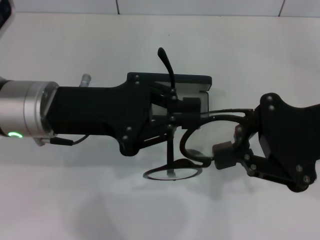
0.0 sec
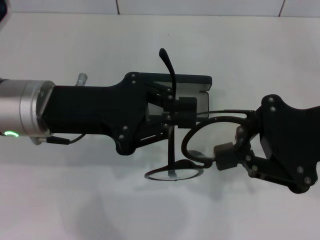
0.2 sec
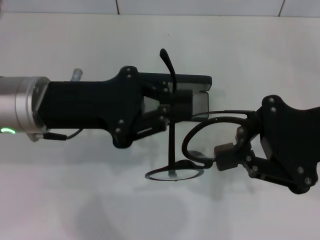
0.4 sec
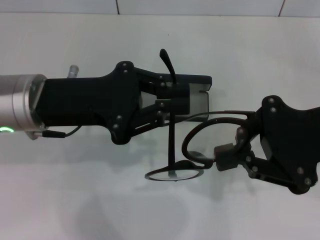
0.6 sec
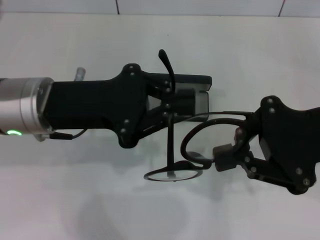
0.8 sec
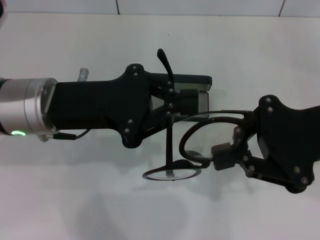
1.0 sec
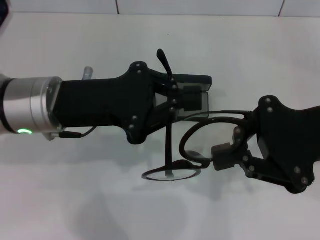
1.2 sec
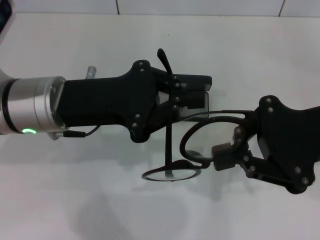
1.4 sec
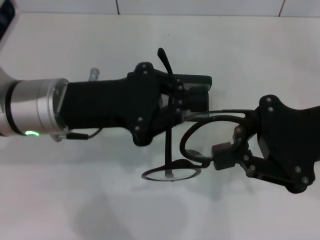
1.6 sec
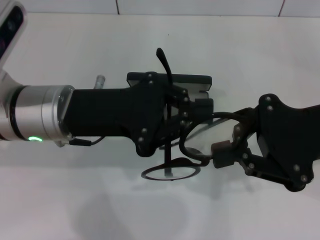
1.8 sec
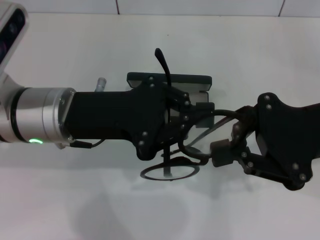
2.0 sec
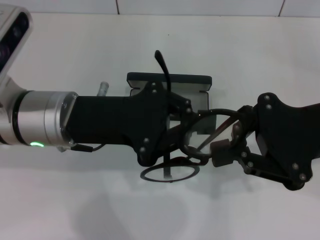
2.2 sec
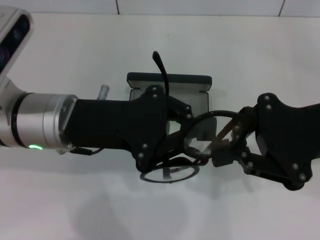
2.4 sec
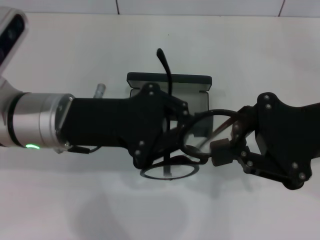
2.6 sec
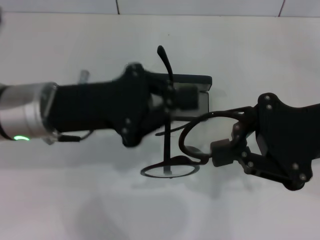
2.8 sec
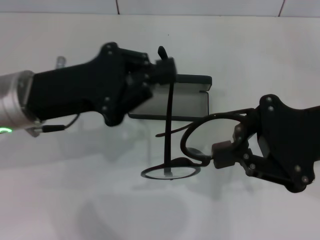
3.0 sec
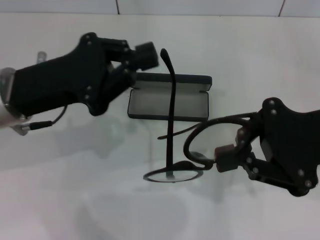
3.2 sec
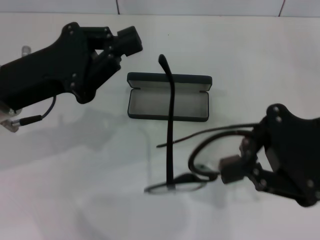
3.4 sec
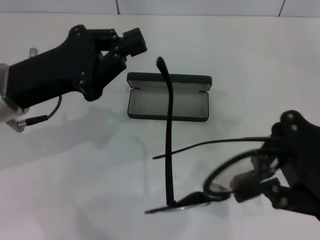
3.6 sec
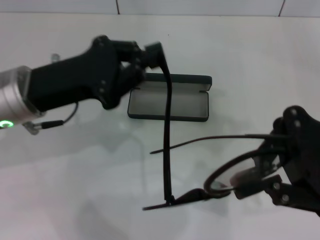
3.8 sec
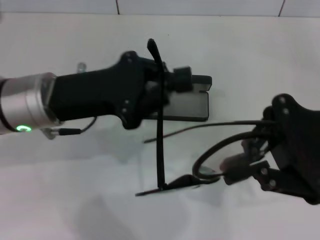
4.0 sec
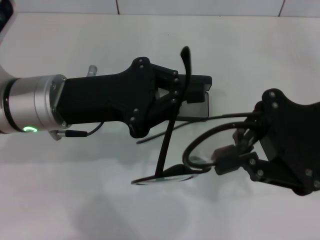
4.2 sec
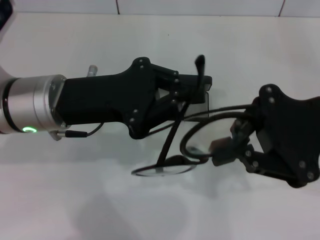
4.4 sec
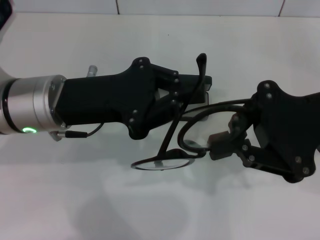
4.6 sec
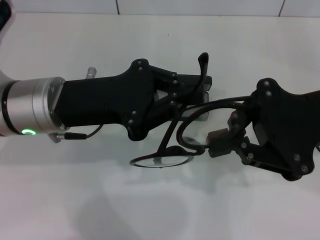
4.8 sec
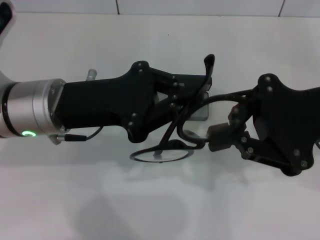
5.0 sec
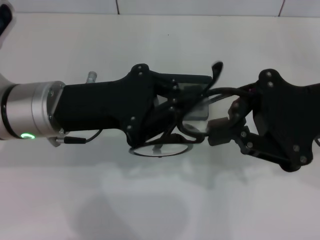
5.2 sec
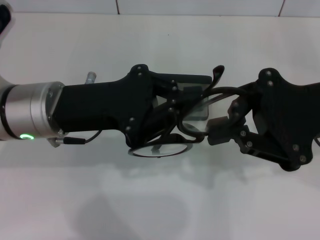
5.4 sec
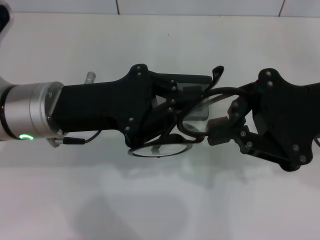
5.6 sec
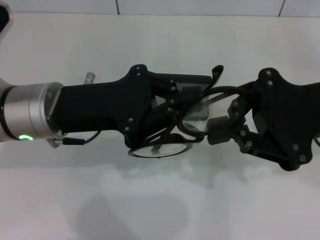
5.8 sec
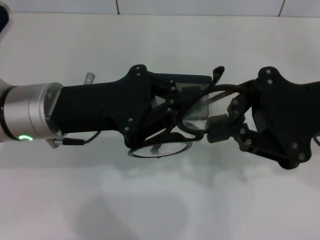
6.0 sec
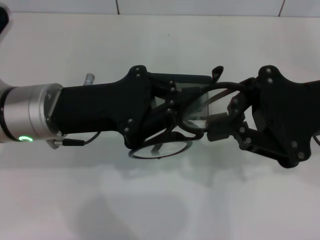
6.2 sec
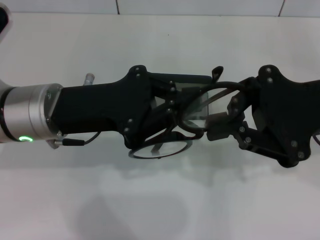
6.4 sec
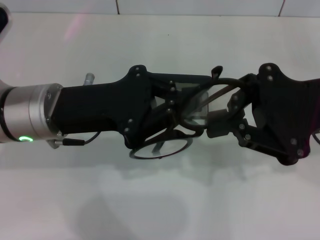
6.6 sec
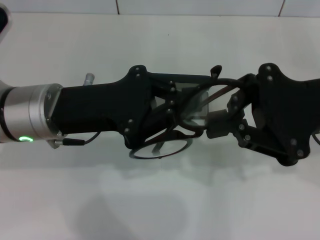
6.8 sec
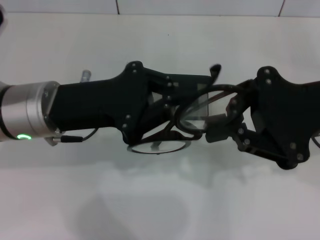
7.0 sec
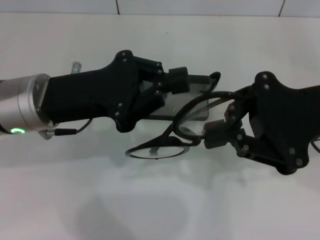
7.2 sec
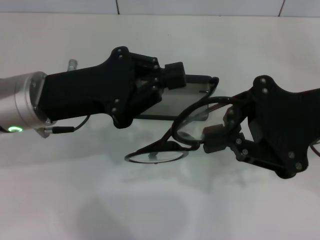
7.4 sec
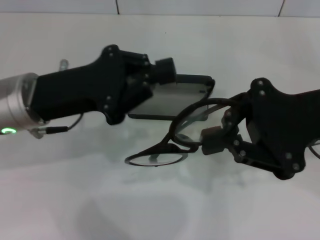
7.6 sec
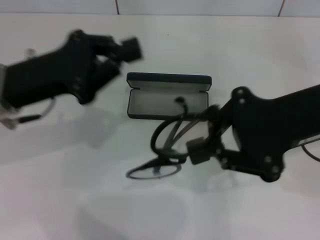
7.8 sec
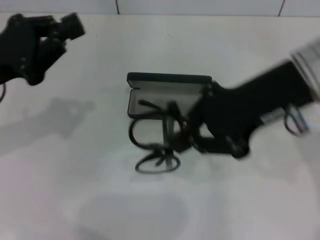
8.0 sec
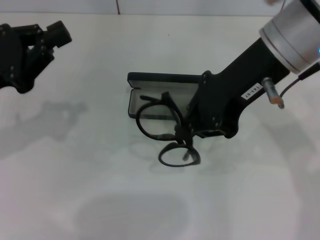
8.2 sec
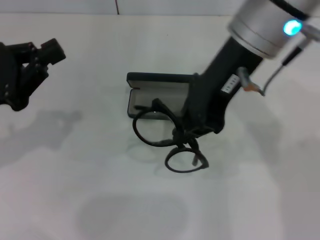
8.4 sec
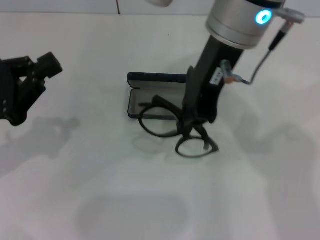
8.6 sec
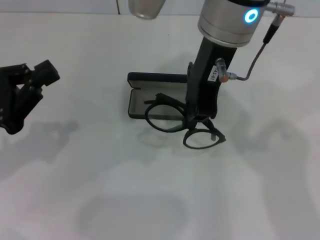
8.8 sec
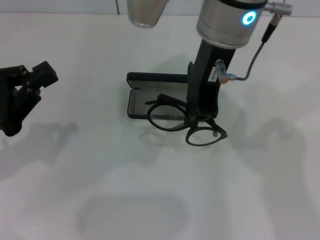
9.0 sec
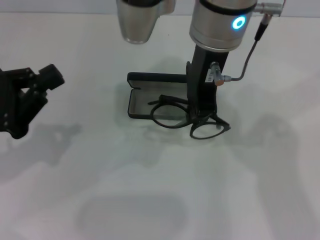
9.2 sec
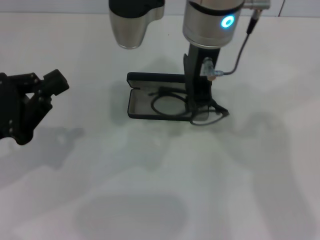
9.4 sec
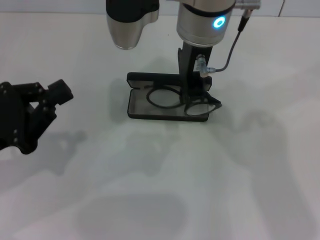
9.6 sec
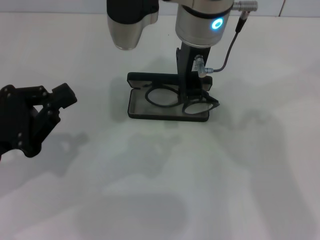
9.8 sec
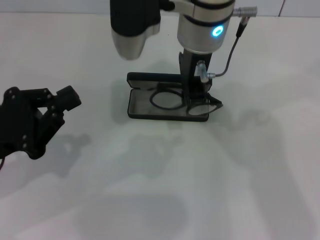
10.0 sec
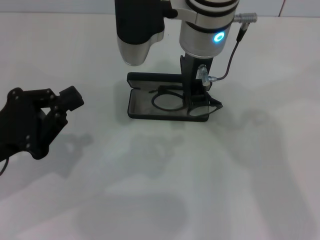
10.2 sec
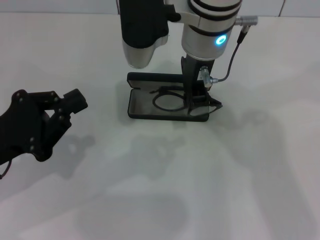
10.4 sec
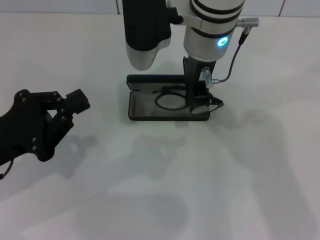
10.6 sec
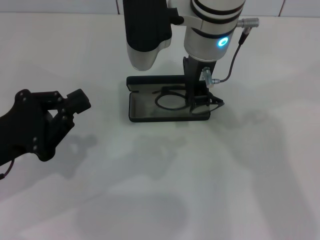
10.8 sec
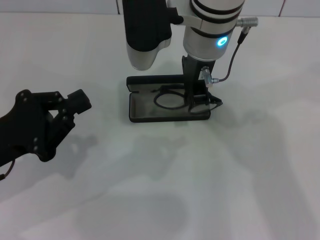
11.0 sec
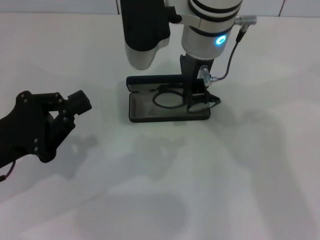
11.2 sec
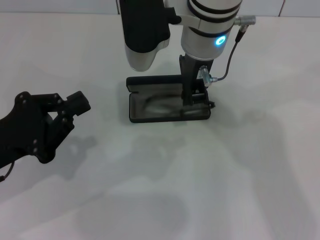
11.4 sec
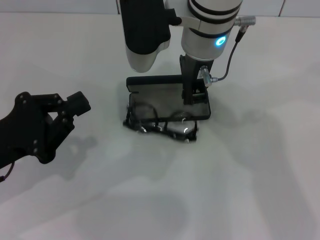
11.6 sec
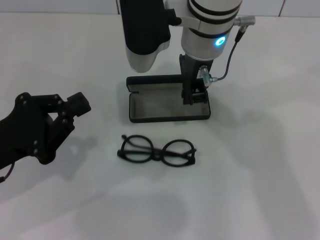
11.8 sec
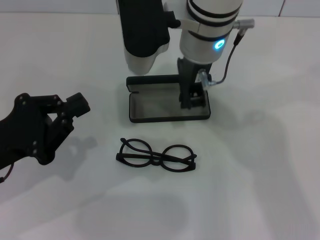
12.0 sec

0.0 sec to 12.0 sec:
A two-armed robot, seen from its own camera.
Step, 0.0 sec to 6.0 sec: Fold the frame with your left hand.
0.0 sec to 3.0 sec: The grippers make only small movements.
3.0 sec to 4.4 sec: The grippers make only small movements.
7.6 sec to 9.0 sec: The right gripper heads to the left, upward and forward, covering roughly 20 cm; the left gripper travels to the left and backward by about 10 cm.
9.0 sec to 10.4 sec: The right gripper heads downward, covering roughly 5 cm.
10.4 sec to 12.0 sec: The two grippers keep their place.

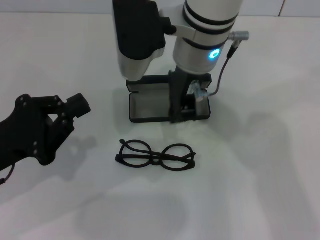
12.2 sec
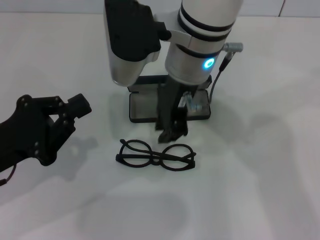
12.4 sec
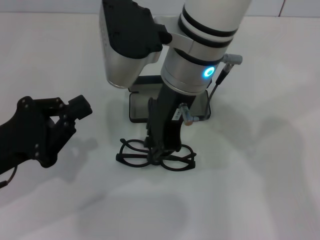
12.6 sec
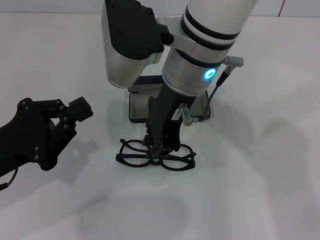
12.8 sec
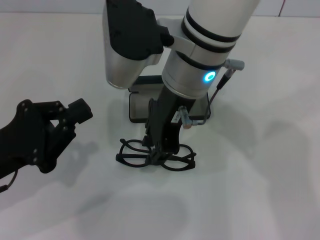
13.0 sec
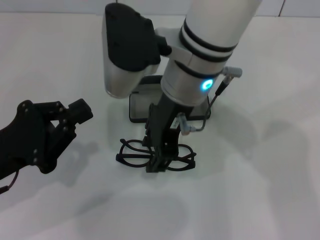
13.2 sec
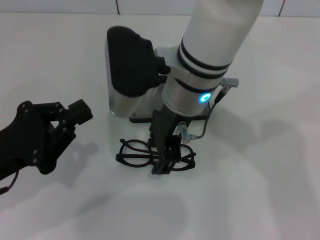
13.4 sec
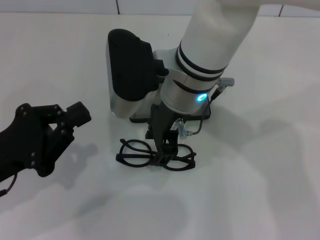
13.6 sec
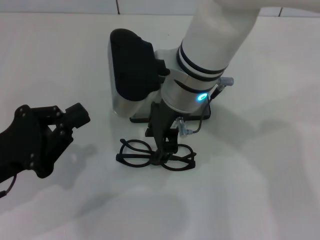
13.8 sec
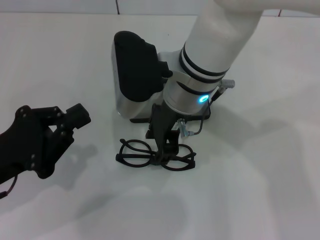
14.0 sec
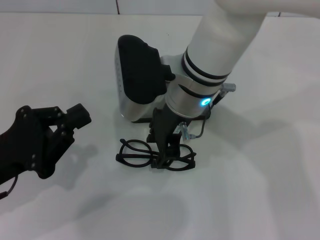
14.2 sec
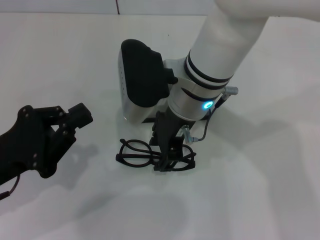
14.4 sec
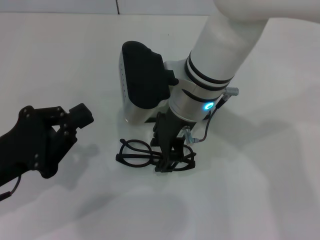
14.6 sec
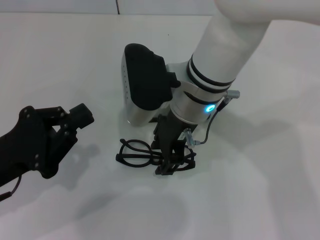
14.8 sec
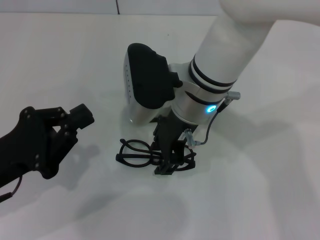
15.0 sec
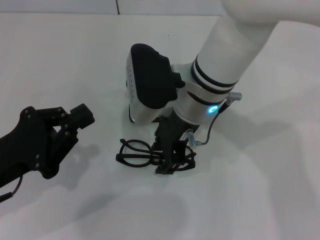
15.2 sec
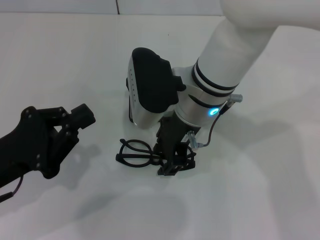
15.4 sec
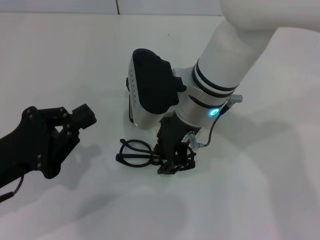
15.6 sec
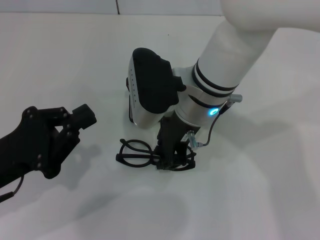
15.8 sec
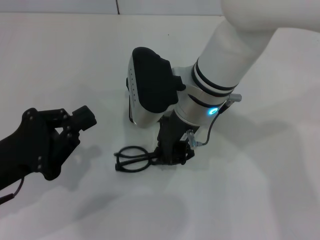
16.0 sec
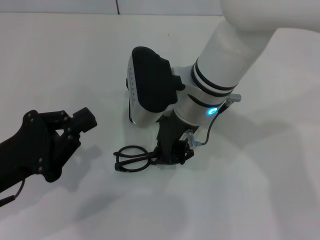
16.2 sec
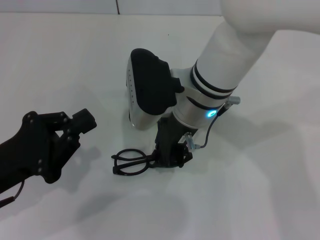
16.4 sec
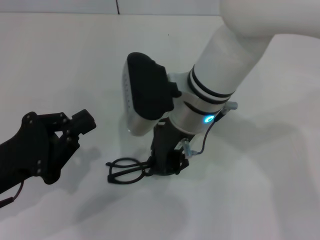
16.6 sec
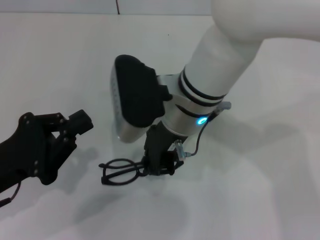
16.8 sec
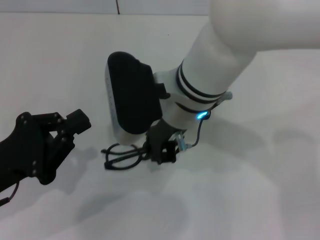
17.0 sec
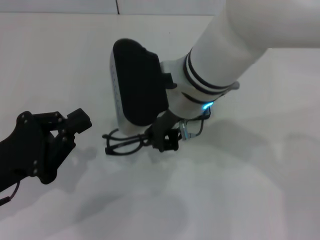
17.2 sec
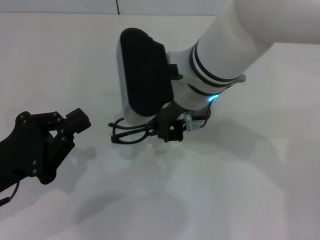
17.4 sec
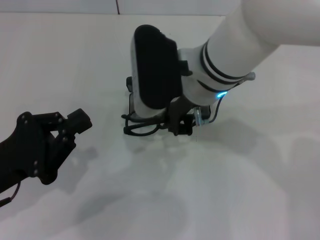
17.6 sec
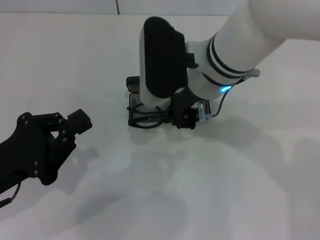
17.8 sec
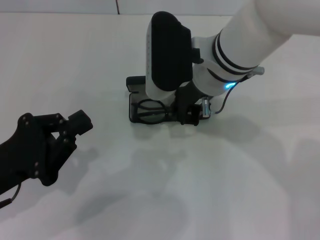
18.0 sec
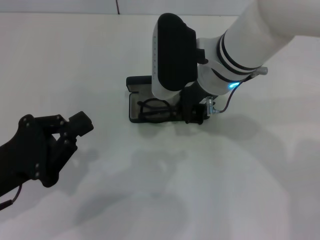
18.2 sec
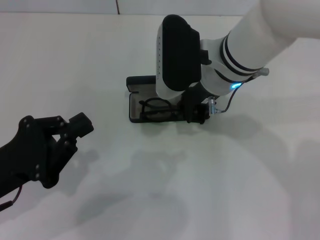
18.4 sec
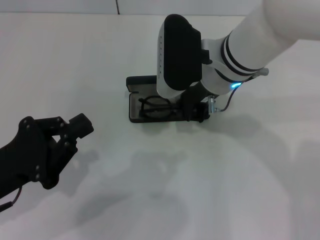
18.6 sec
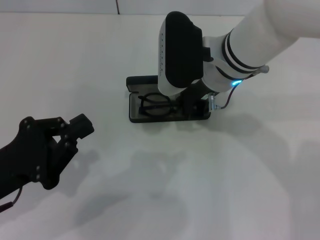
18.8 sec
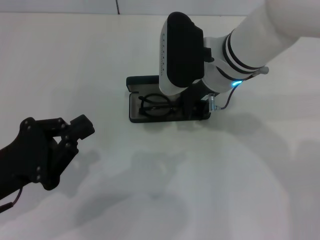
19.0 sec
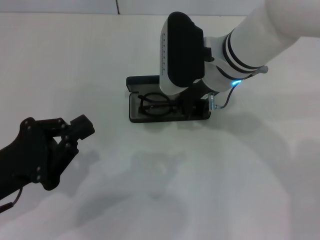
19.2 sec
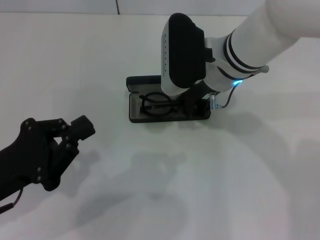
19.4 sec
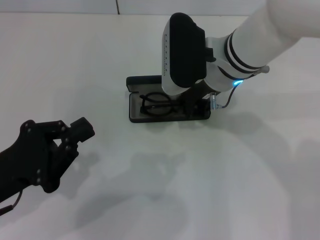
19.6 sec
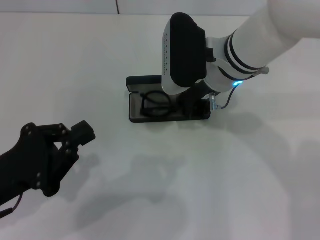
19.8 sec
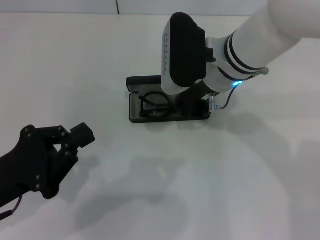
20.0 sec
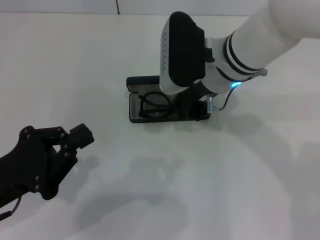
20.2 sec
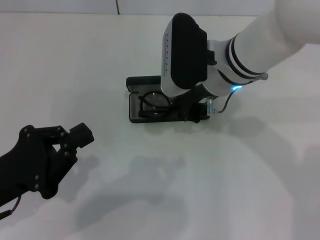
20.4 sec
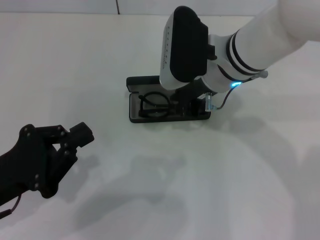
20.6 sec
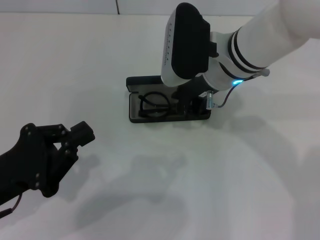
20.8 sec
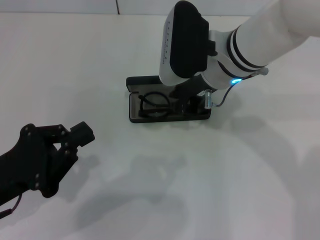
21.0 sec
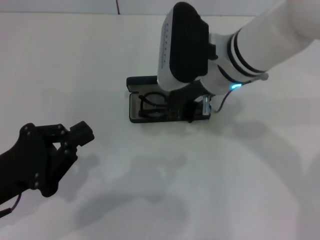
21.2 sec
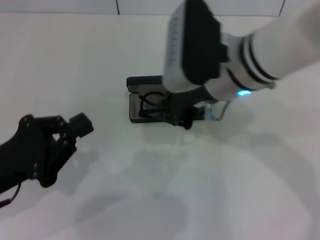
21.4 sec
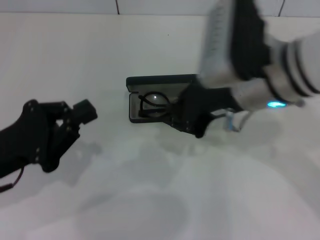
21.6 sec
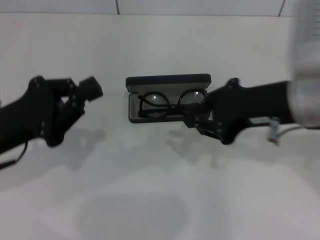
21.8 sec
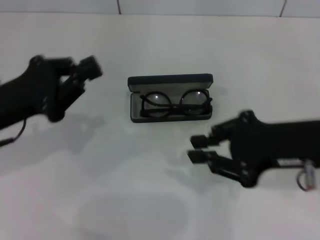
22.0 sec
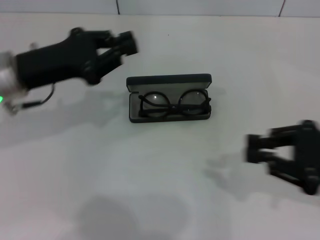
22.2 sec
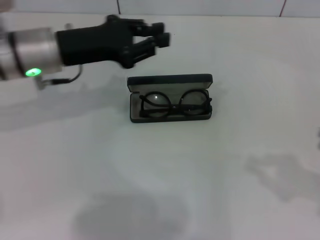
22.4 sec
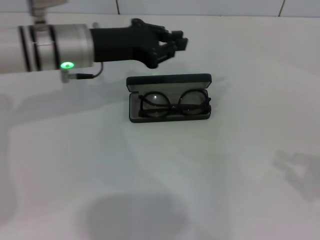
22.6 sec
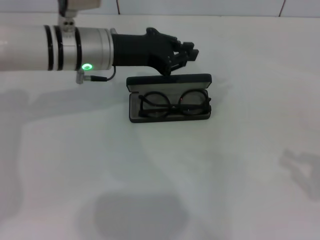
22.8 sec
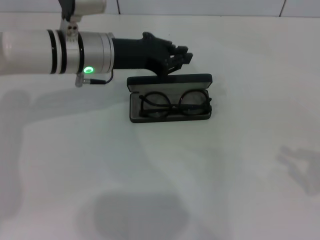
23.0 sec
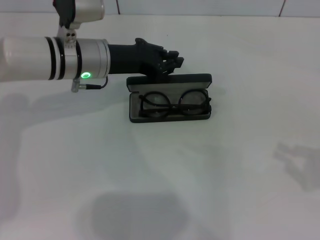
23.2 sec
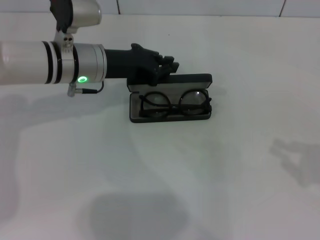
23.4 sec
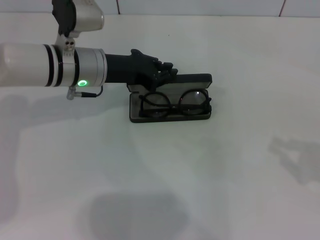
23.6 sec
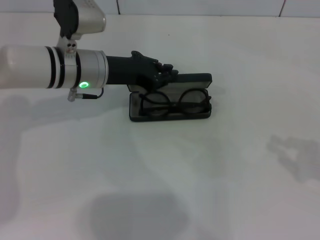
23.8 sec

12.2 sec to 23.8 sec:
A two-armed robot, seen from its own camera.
Step, 12.2 sec to 21.2 sec: Put the glasses into the case with your right hand.
12.2 sec to 13.6 sec: The right gripper opens.
13.6 sec to 15.0 sec: The grippers make only small movements.
15.0 sec to 16.6 sec: The right gripper closes its fingers.
16.6 sec to 18.0 sec: There are only small adjustments of the grippers.
18.0 sec to 21.0 sec: The grippers stay close to where they were, moving slightly.
21.0 sec to 22.4 sec: The right gripper travels to the right and backward by roughly 35 cm. The left gripper heads forward, covering some 20 cm.
22.4 sec to 23.8 sec: The left gripper changes place by roughly 5 cm.
